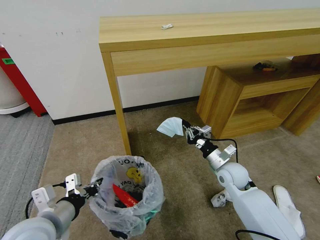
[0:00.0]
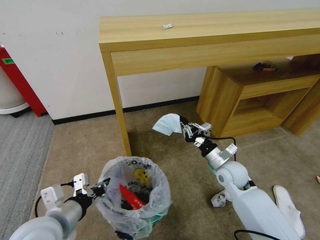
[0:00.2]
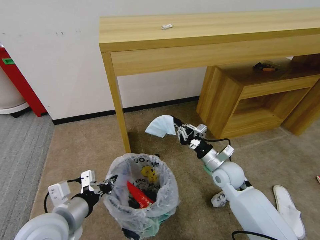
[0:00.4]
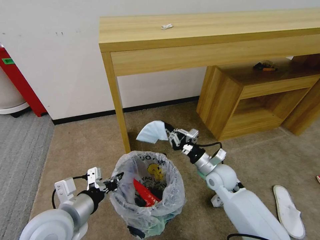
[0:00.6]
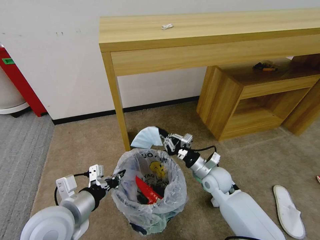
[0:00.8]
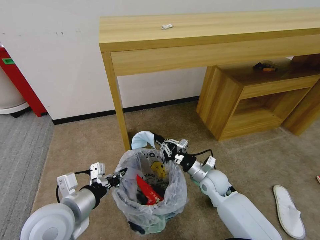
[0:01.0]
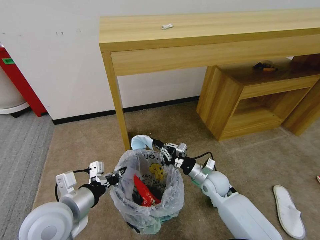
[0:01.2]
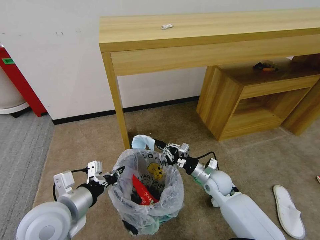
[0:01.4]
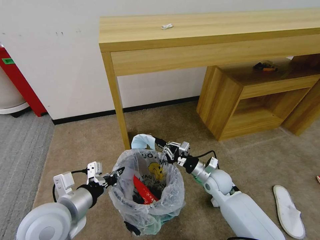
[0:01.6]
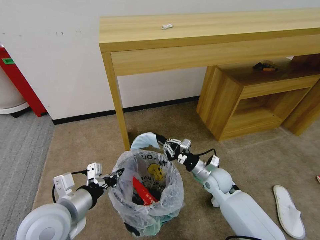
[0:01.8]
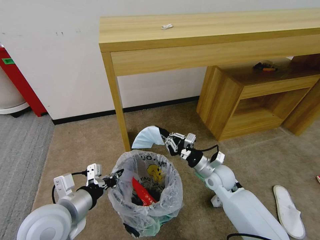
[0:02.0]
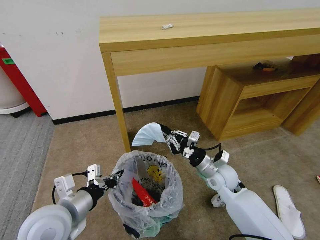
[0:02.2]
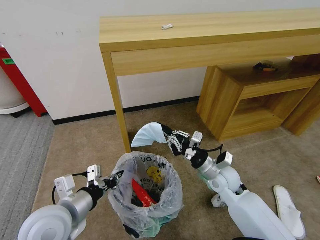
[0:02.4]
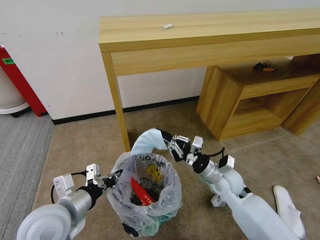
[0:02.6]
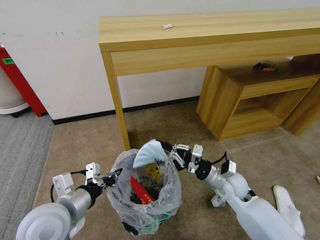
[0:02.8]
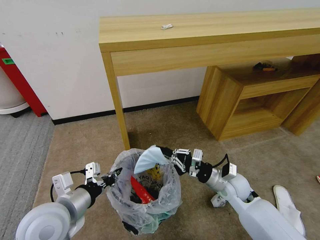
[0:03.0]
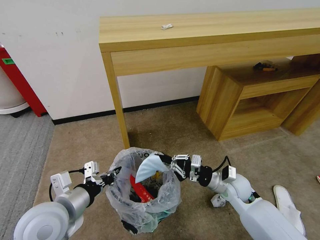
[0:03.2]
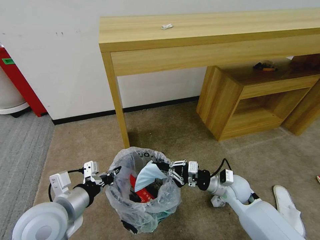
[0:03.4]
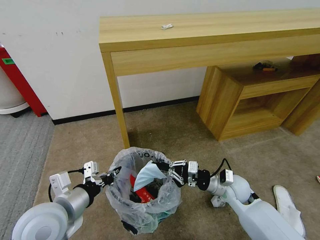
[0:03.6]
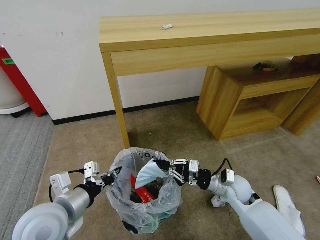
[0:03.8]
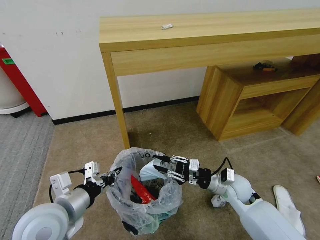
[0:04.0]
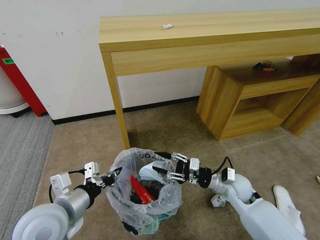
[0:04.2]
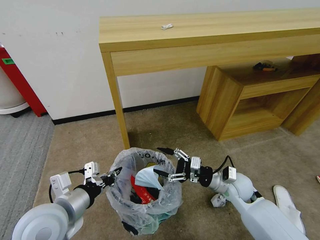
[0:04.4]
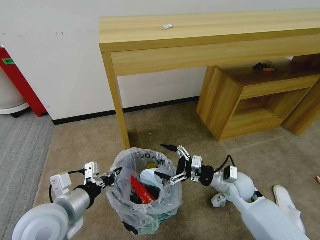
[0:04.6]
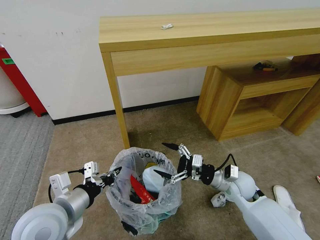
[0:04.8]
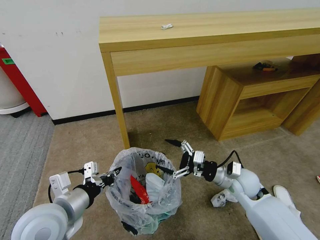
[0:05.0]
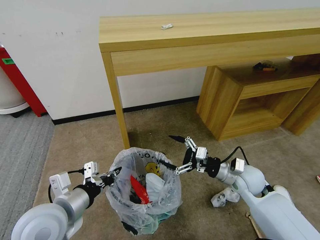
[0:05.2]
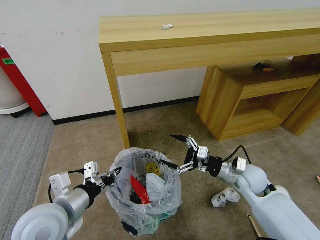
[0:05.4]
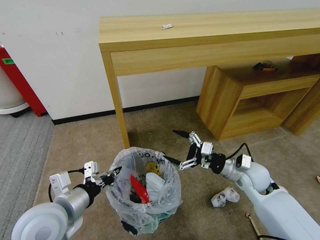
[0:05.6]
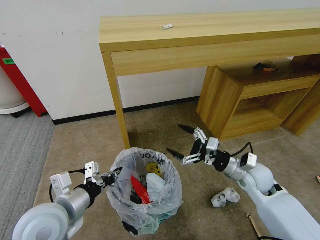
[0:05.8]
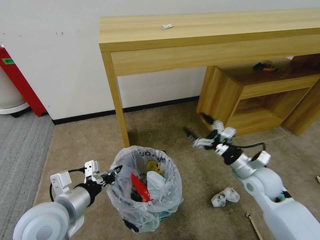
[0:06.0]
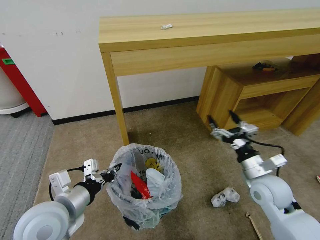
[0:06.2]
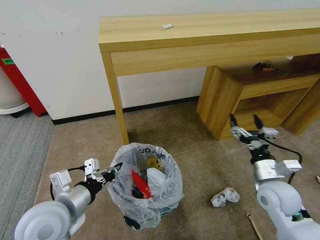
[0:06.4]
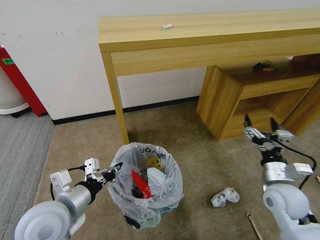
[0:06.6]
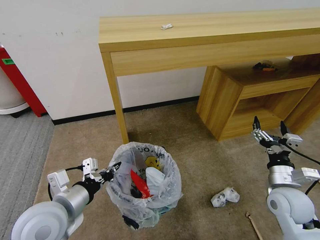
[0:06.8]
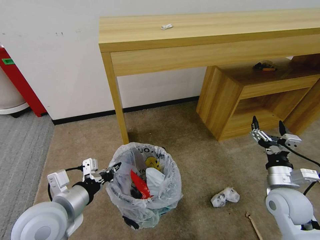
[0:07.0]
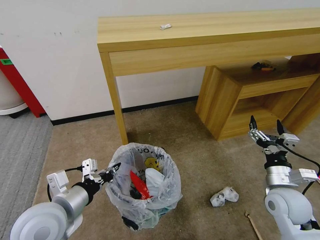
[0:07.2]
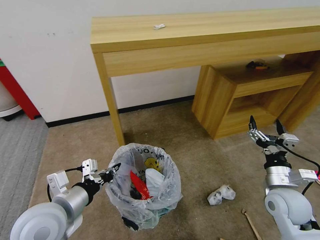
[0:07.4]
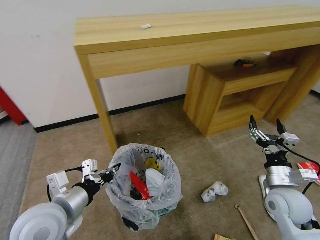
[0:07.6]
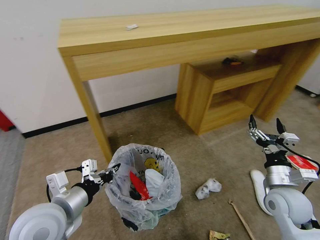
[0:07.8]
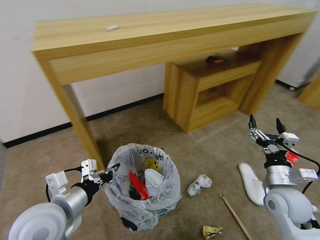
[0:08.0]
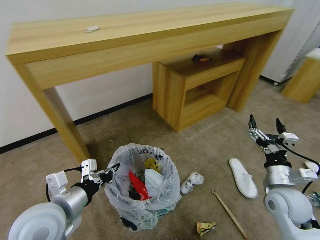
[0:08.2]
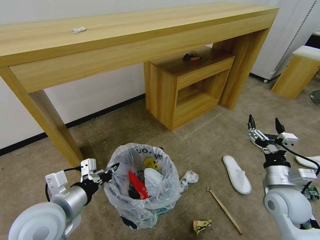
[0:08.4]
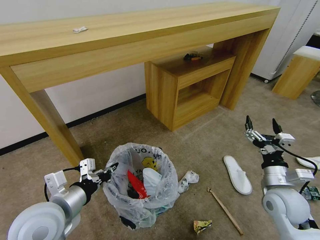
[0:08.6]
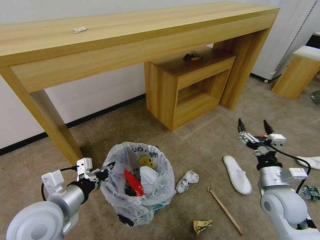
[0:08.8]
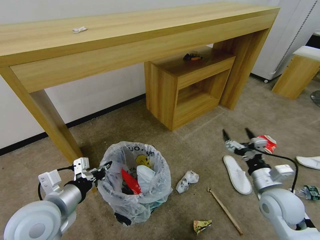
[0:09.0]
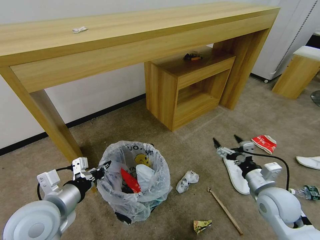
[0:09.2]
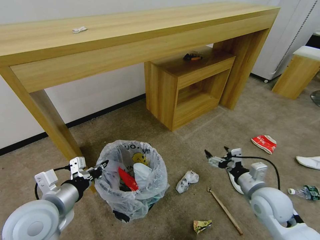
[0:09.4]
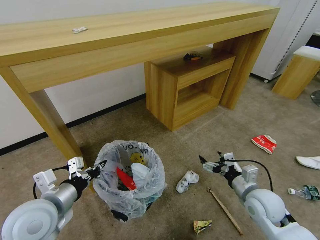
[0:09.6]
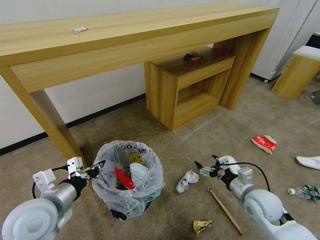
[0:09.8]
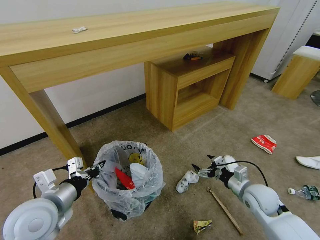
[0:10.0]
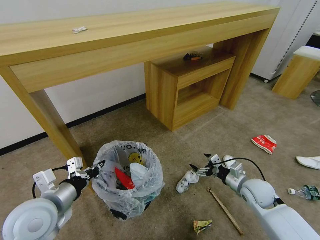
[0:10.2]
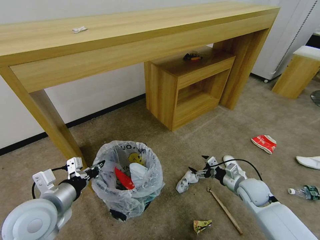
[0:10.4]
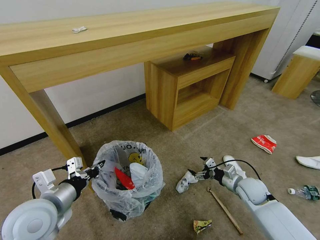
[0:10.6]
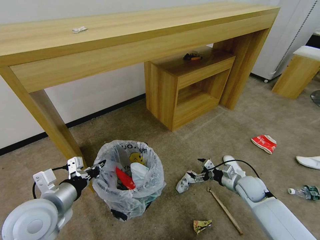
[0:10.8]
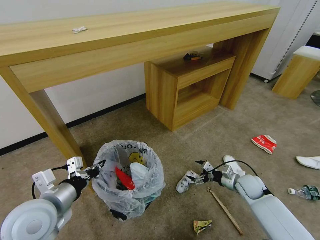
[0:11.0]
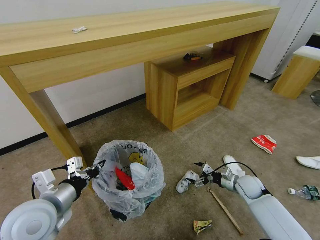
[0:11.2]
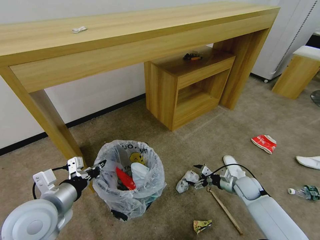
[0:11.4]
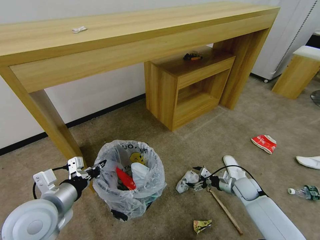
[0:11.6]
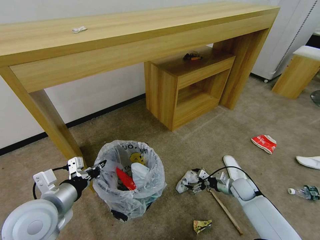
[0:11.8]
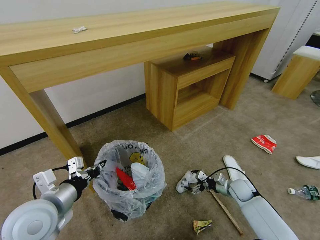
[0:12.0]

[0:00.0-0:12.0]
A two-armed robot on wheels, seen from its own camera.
Task of the whole recording: Pick up the trash bin and place the garbage on the floor into it.
0:00.0 to 0:01.6: The right gripper changes place by some 5 cm.
0:01.6 to 0:03.0: The right gripper shifts by about 5 cm.
0:03.0 to 0:04.4: The right gripper opens.
0:04.4 to 0:06.0: The right gripper shifts roughly 10 cm upward and to the right.
0:06.0 to 0:07.6: The right gripper moves backward, approximately 5 cm.
0:09.0 to 0:10.4: The right gripper goes approximately 10 cm downward and forward.
0:10.4 to 0:12.0: The right gripper travels downward by about 10 cm.

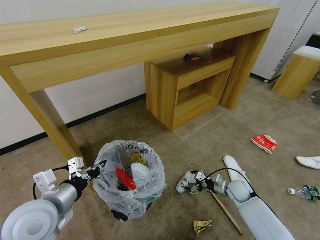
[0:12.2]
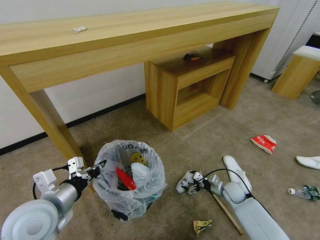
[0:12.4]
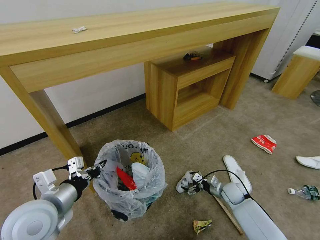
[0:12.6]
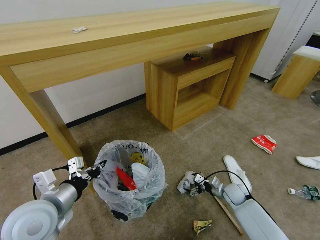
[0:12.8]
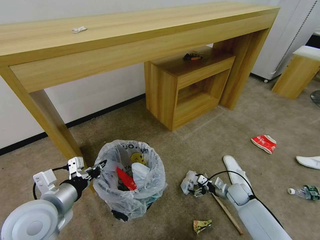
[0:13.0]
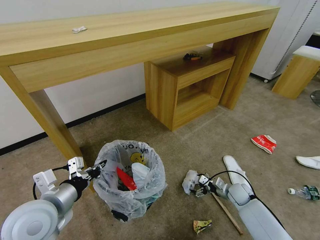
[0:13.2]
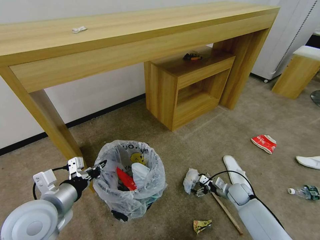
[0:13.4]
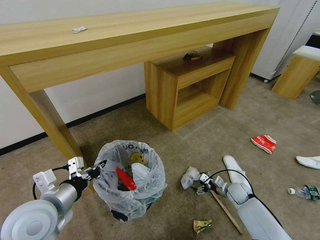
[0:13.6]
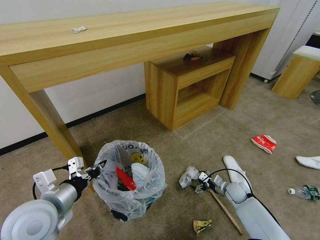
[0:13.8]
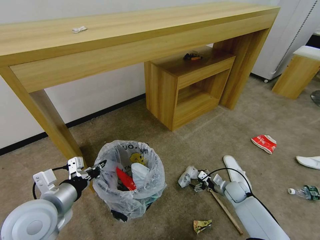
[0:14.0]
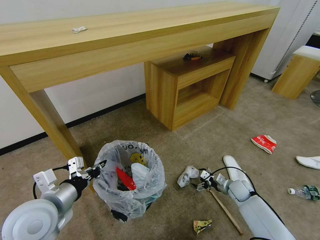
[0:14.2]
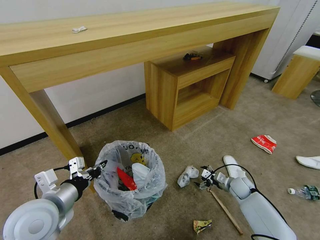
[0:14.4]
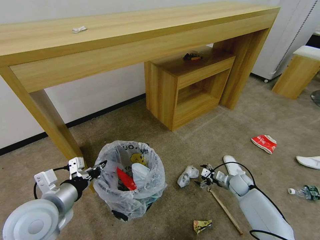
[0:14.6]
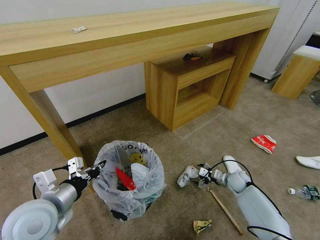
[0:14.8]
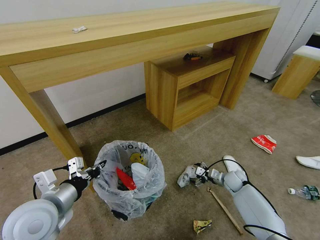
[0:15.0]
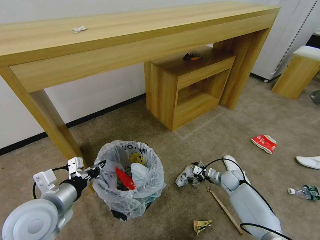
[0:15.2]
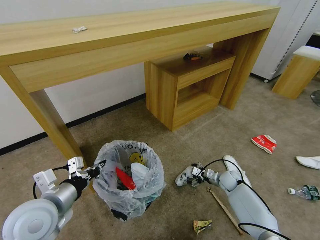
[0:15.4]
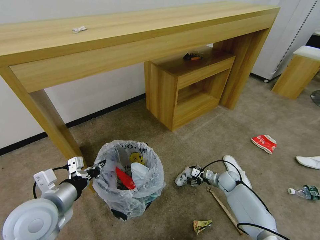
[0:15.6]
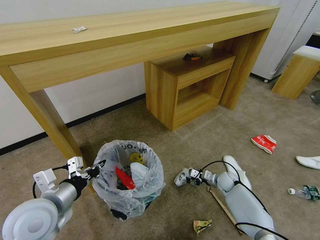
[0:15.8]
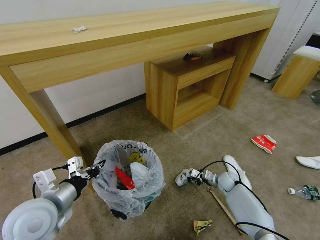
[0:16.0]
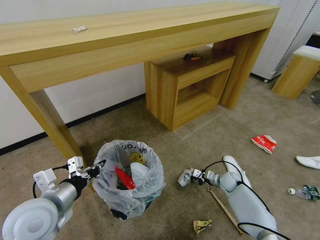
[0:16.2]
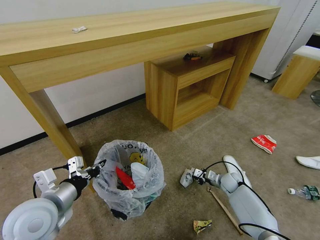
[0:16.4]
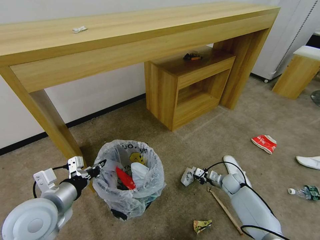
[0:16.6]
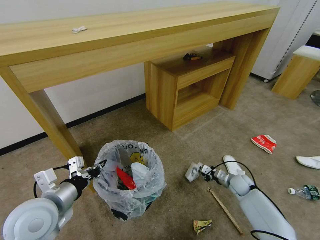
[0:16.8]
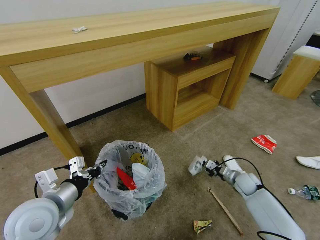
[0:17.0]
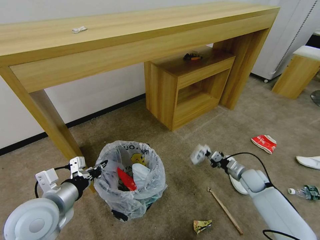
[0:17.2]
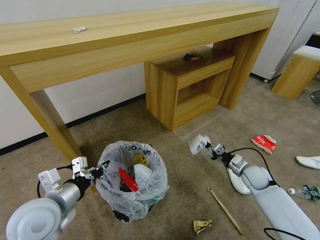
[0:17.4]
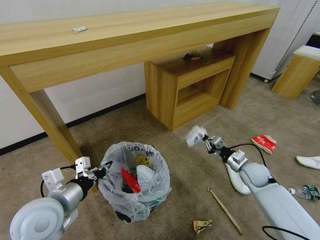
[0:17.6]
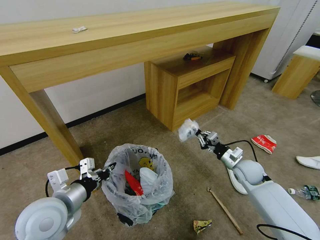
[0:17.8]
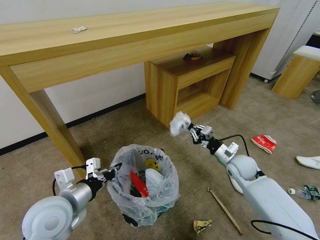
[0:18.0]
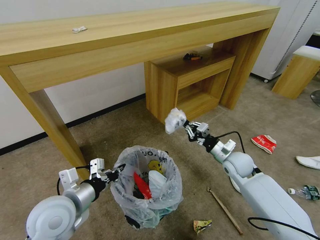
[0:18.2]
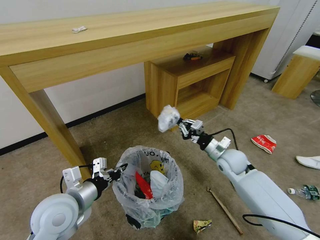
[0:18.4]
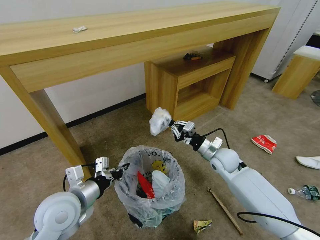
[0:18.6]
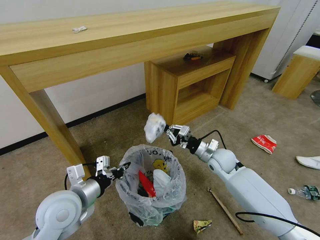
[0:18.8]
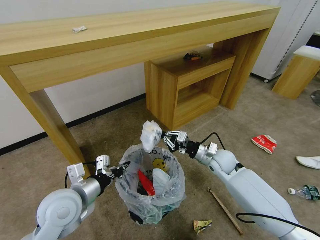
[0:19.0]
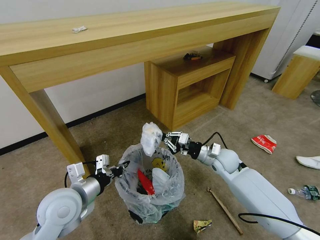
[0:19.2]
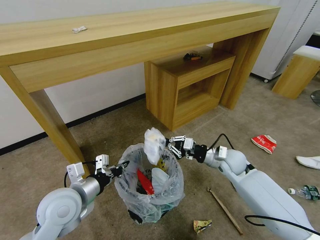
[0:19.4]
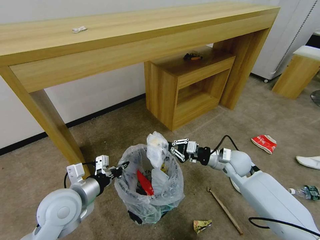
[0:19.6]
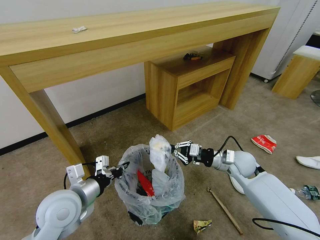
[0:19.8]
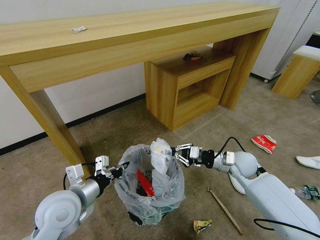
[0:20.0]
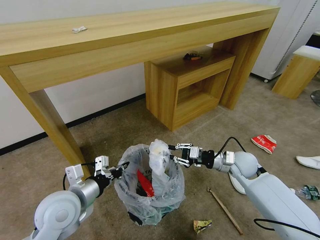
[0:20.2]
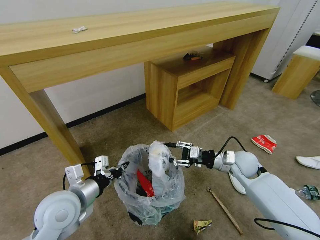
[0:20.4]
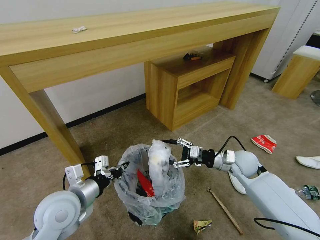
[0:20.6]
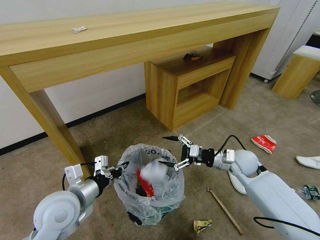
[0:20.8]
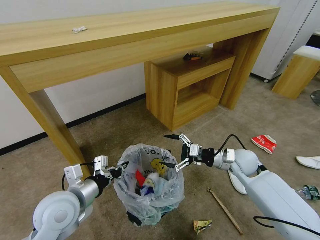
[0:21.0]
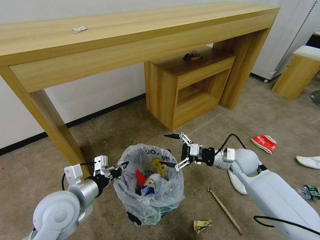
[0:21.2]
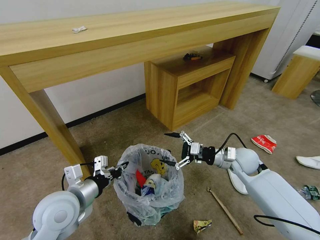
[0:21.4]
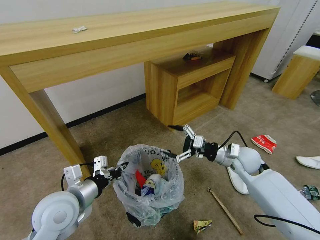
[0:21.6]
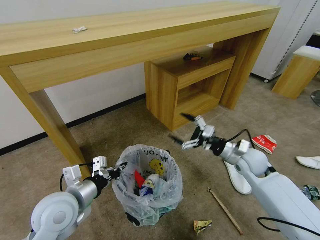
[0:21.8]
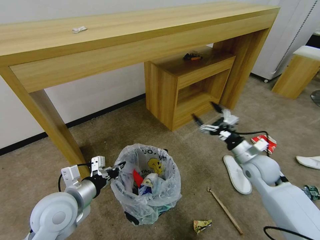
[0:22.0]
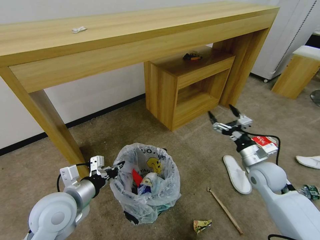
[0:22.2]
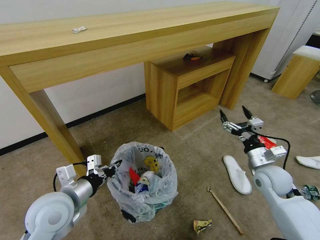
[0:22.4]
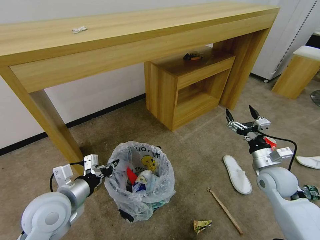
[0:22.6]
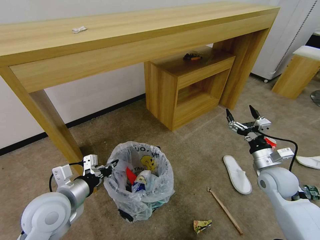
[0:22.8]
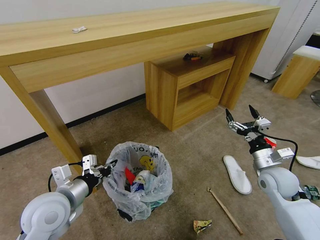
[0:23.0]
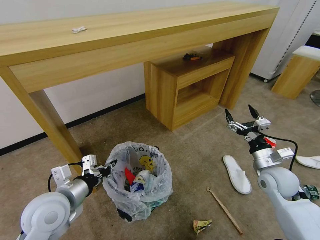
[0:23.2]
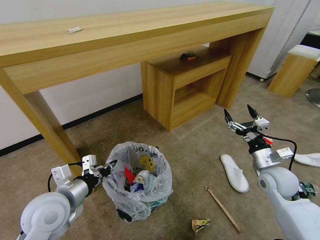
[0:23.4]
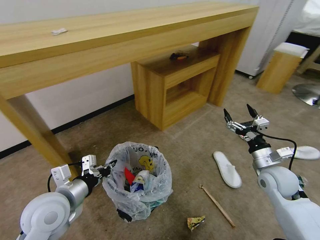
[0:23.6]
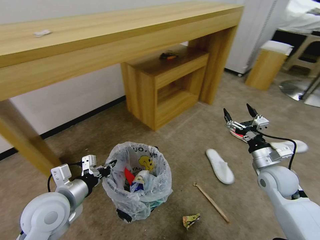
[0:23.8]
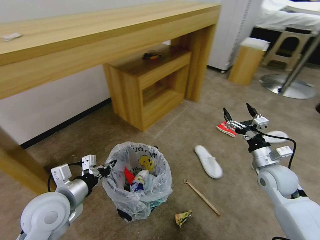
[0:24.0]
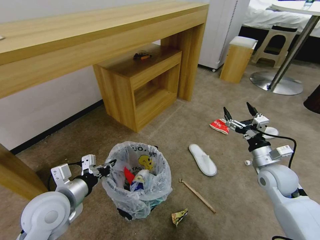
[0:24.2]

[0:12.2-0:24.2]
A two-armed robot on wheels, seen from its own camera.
Task of the whole recording: Pick up the trash bin and place the garbage on the floor into it.
0:12.2 to 0:13.8: The grippers stay close to where they were, moving slightly.
0:13.8 to 0:15.2: The right gripper goes about 5 cm forward.
0:15.2 to 0:16.6: The right gripper closes.
0:16.6 to 0:18.2: The right gripper shifts approximately 20 cm upward.
0:19.8 to 0:21.2: The right gripper opens its fingers.
0:21.2 to 0:22.6: The right gripper goes roughly 10 cm to the right and backward.
